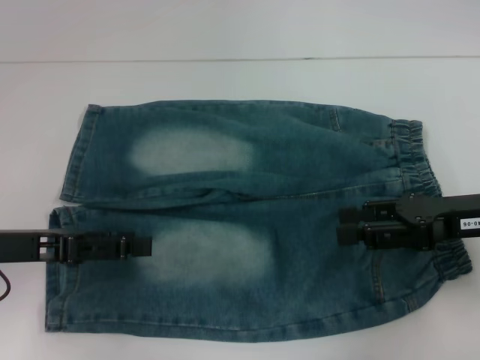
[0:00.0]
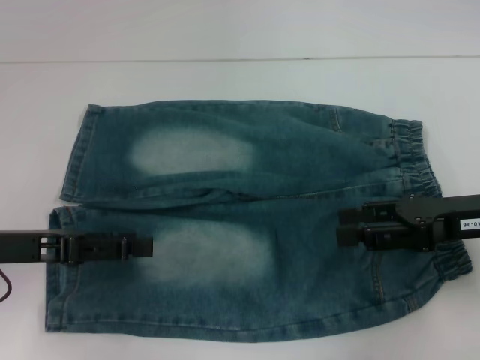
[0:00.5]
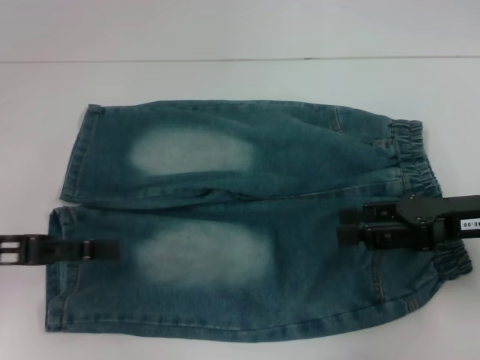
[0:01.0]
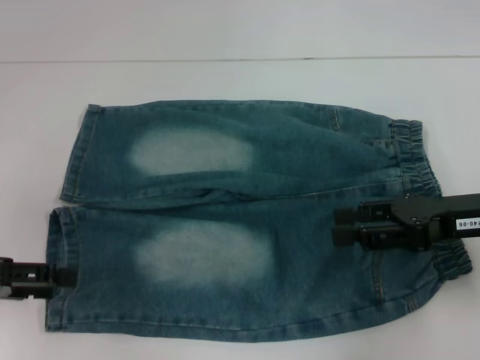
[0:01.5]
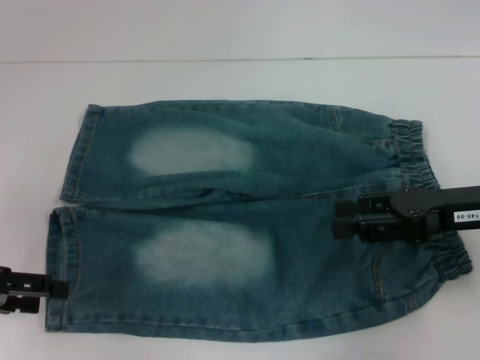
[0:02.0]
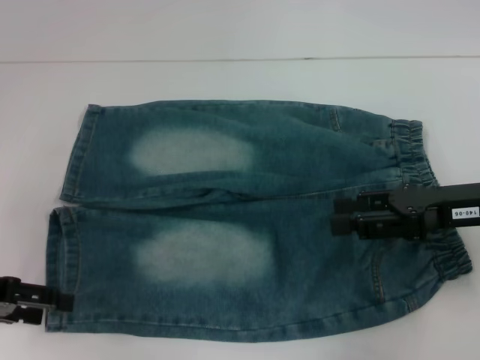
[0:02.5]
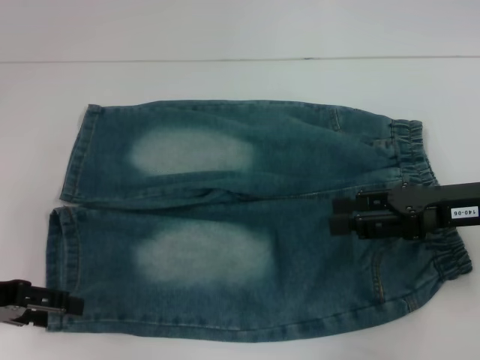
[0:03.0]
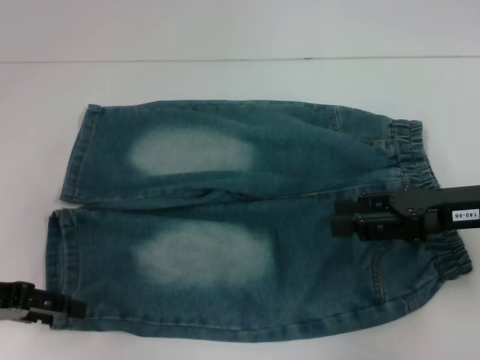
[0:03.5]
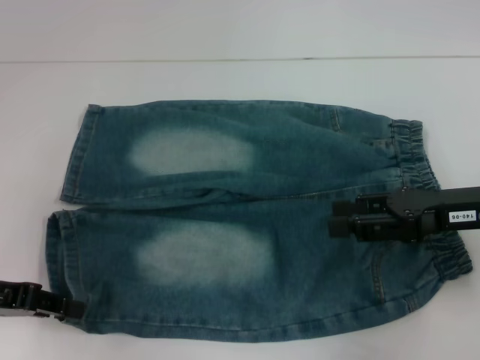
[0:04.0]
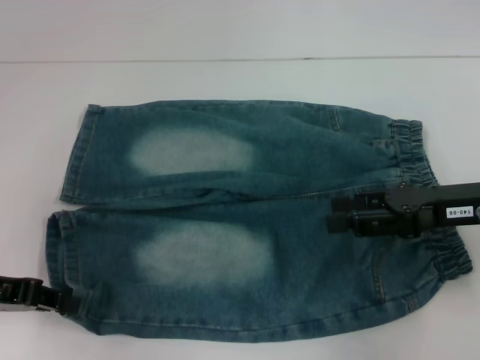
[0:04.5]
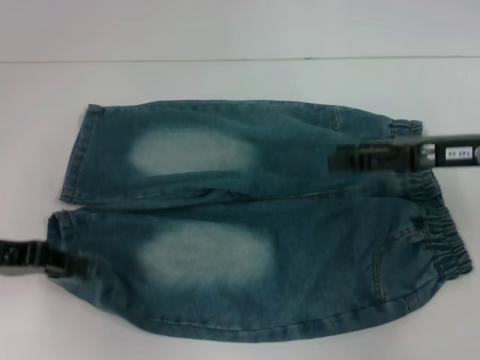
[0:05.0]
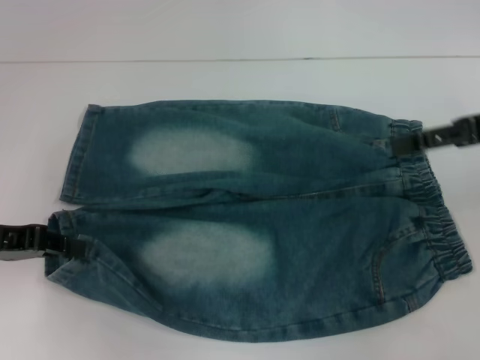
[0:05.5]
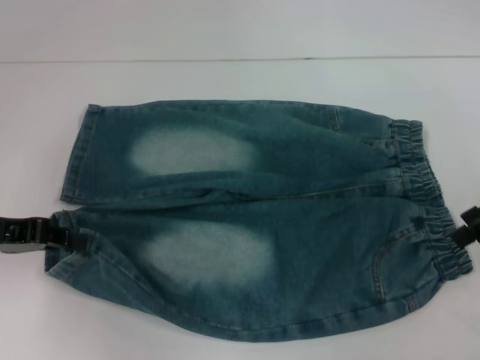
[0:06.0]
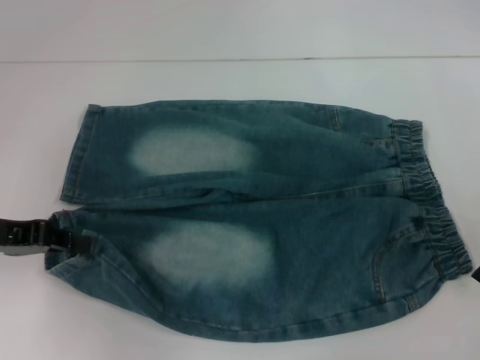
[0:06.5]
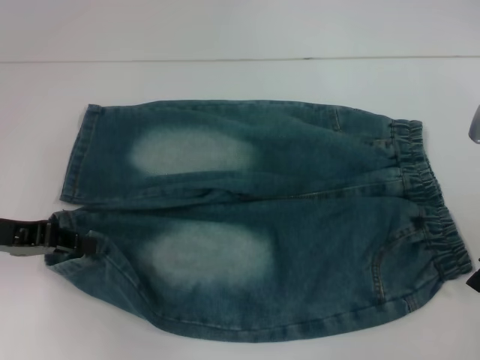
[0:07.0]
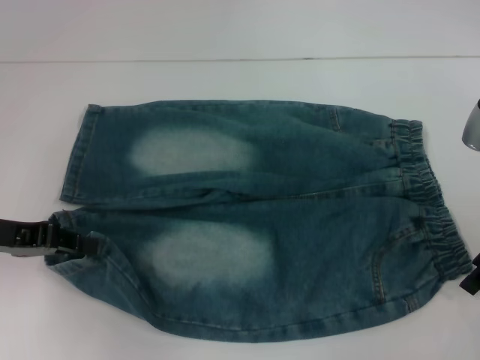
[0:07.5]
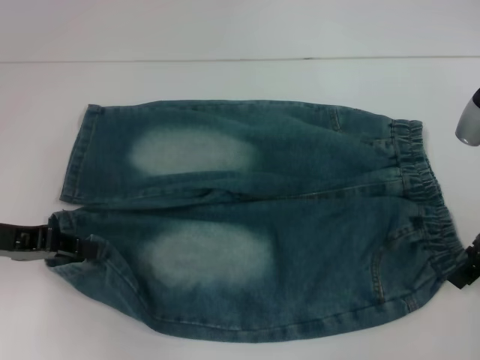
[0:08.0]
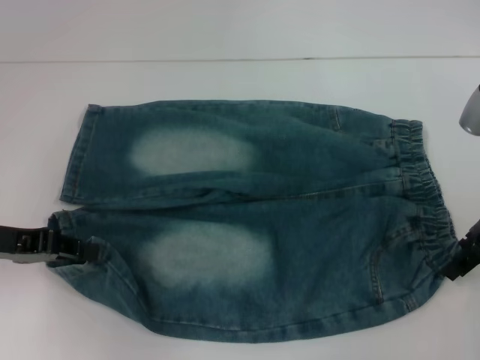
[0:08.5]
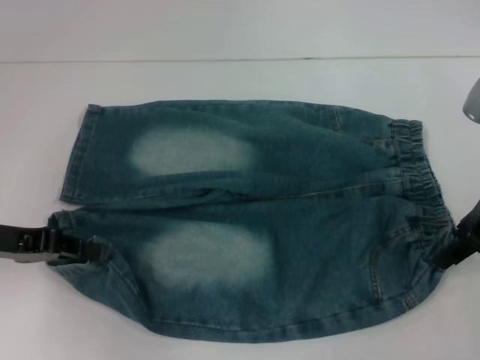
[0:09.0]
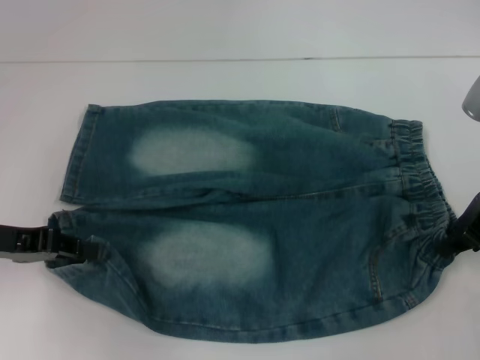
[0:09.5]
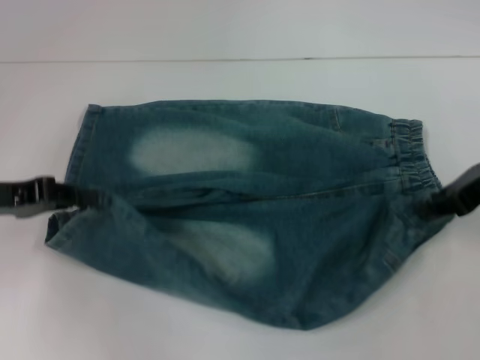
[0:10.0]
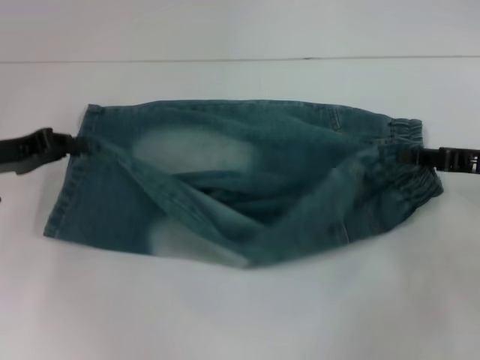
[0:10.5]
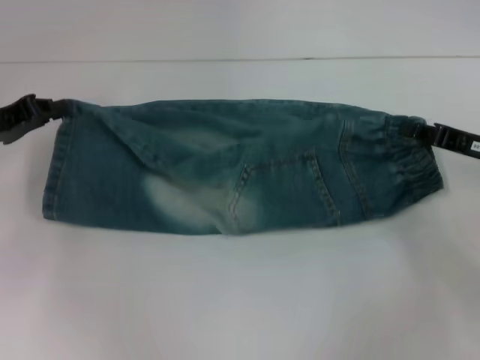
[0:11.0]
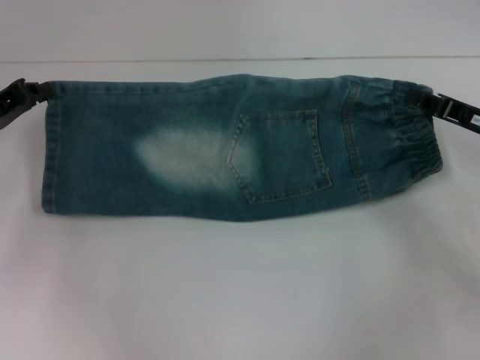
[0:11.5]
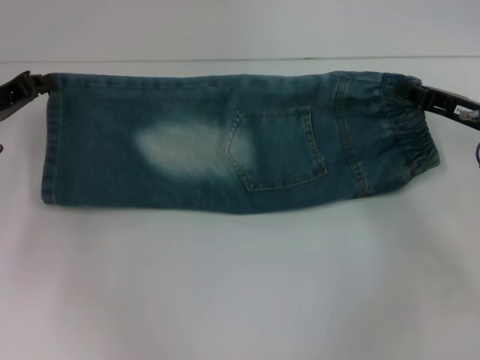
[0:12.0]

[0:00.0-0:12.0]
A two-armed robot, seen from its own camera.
Step, 0:00.0 to 0:04.0: Grab the lower left pant leg with your left hand.
Step, 0:04.5 to 0:08.5: Hold the lower right waistband with your right hand.
0:00.0 to 0:02.0: The left gripper shifts approximately 5 cm to the left.
0:02.0 to 0:04.0: The left gripper closes its fingers.
0:04.0 to 0:06.0: The left gripper closes, while the right gripper shifts approximately 10 cm upward and to the right.
0:06.0 to 0:08.0: The right gripper is displaced downward by about 5 cm.
0:08.0 to 0:10.0: The right gripper closes up.
0:10.0 to 0:12.0: The right gripper goes approximately 5 cm downward, while the left gripper shifts some 5 cm forward.

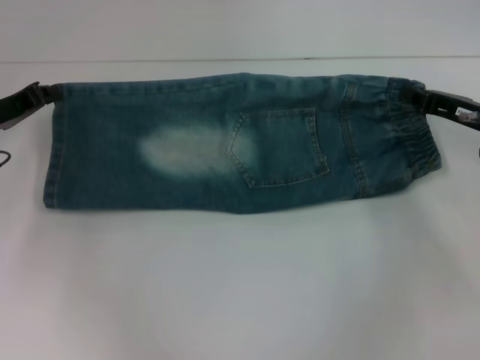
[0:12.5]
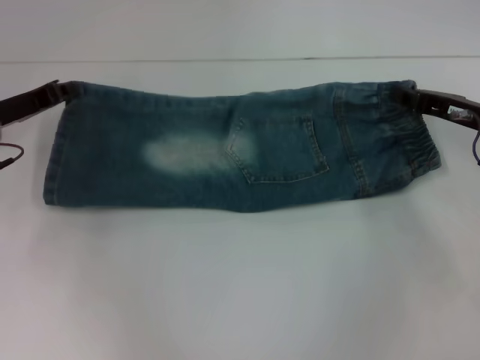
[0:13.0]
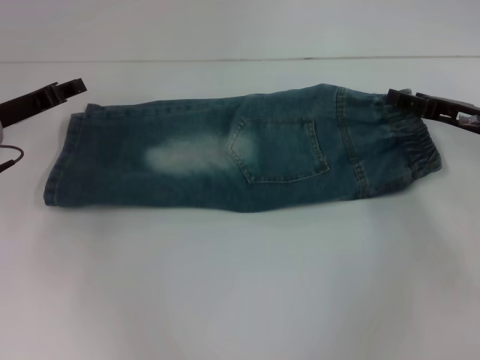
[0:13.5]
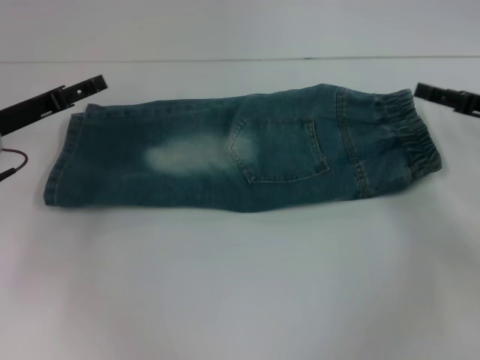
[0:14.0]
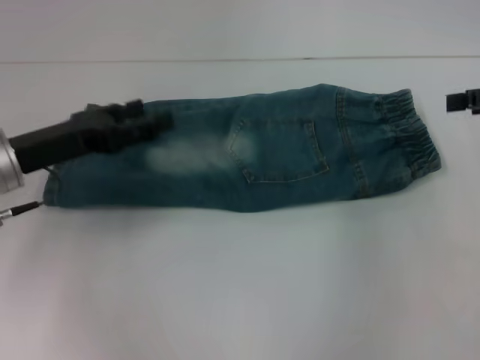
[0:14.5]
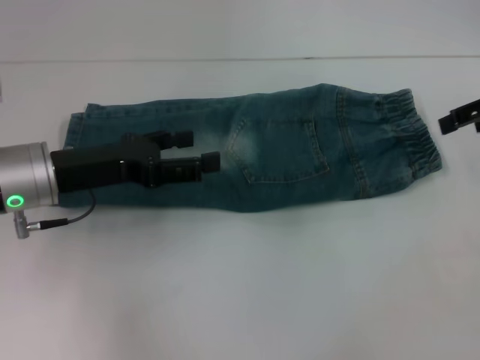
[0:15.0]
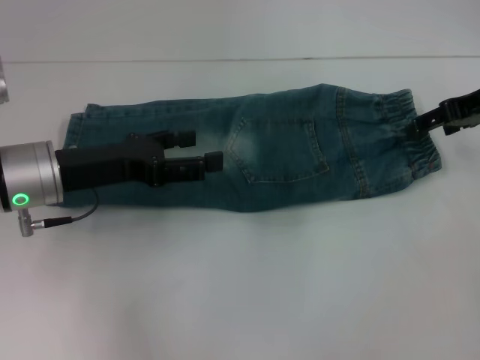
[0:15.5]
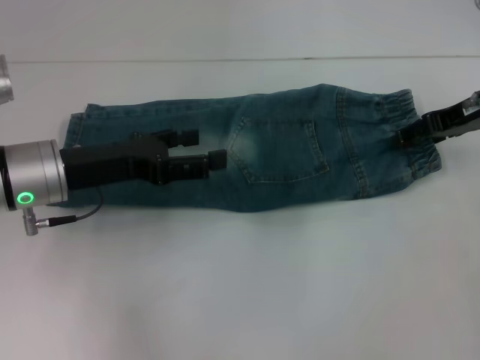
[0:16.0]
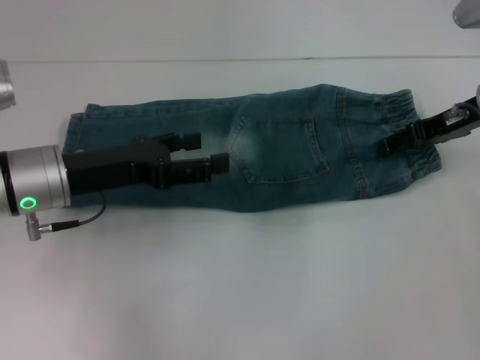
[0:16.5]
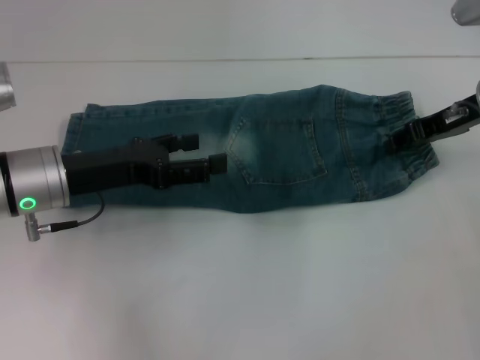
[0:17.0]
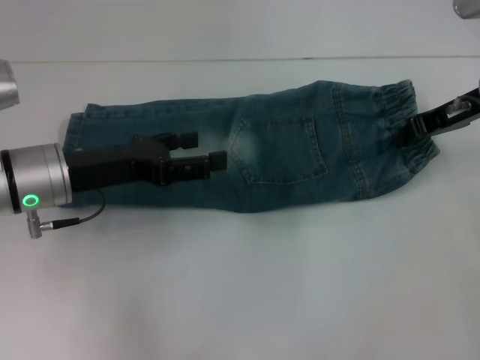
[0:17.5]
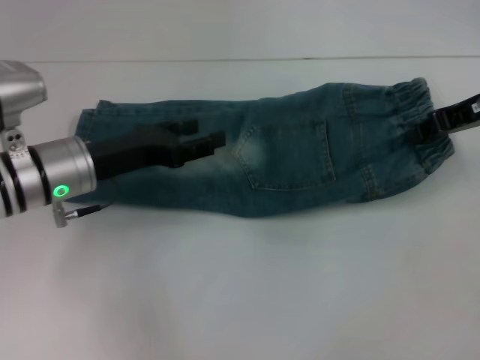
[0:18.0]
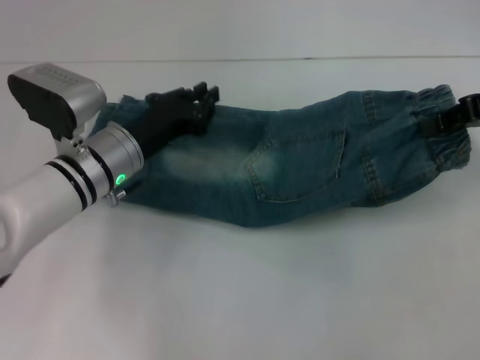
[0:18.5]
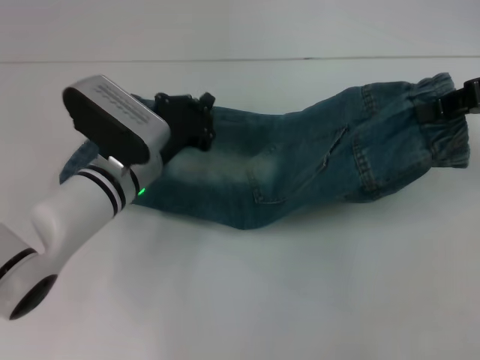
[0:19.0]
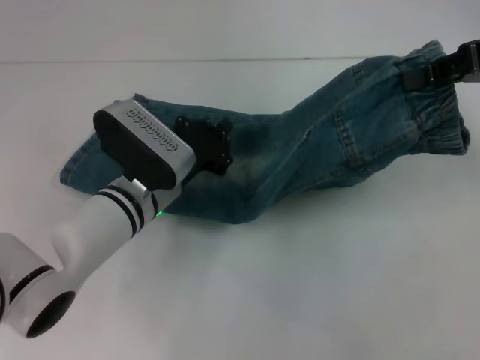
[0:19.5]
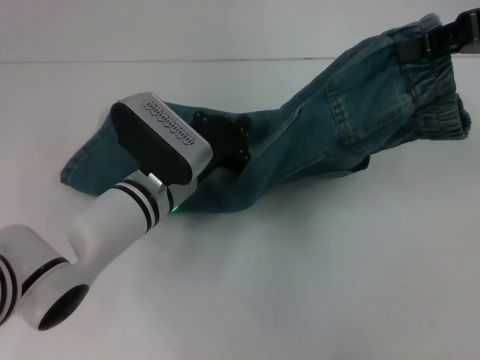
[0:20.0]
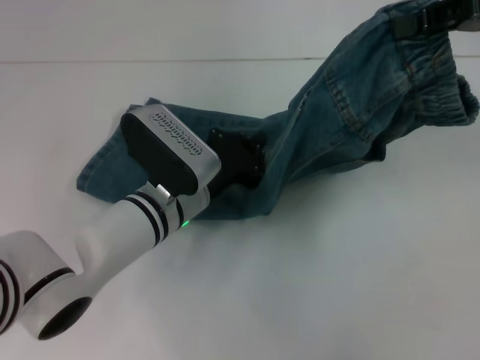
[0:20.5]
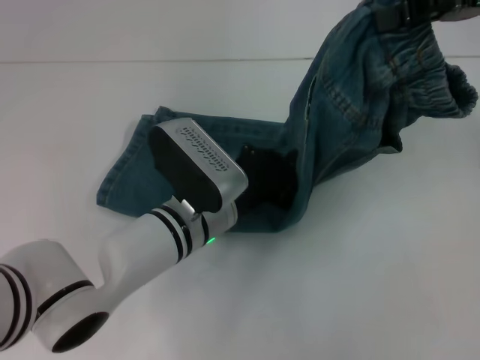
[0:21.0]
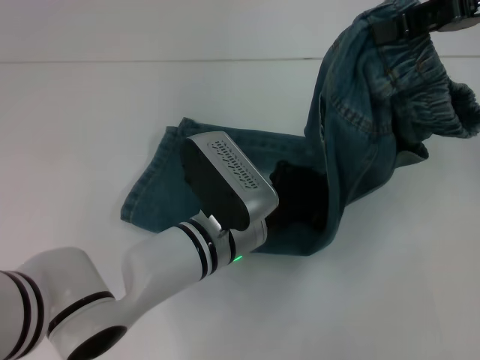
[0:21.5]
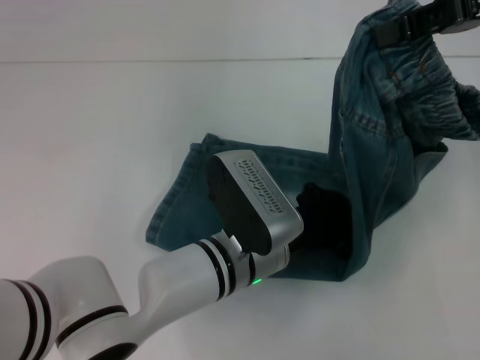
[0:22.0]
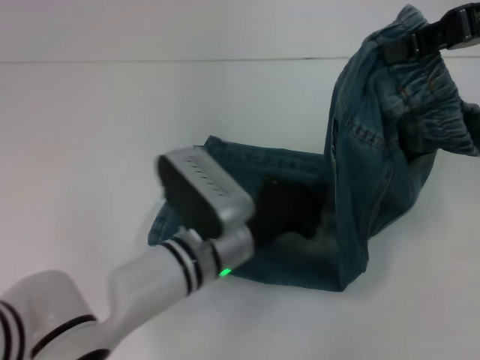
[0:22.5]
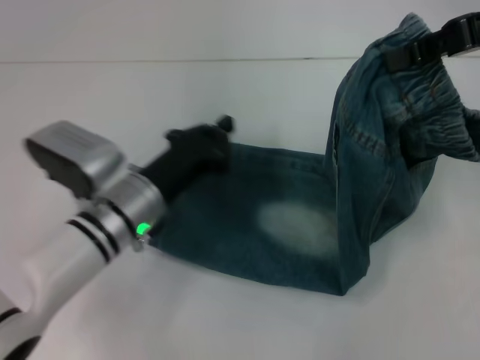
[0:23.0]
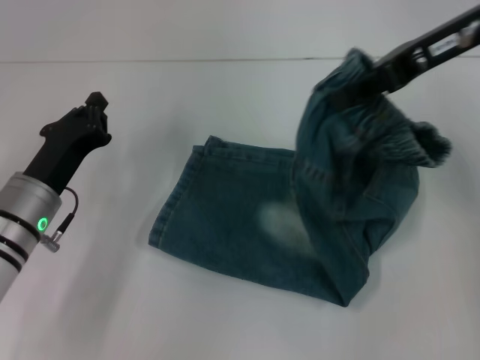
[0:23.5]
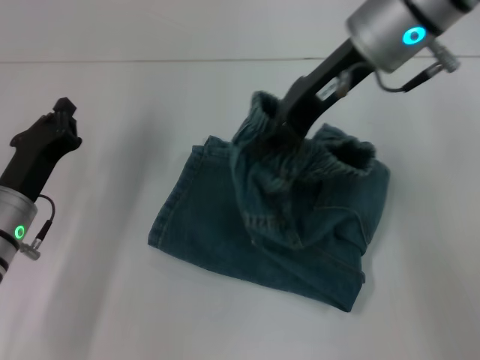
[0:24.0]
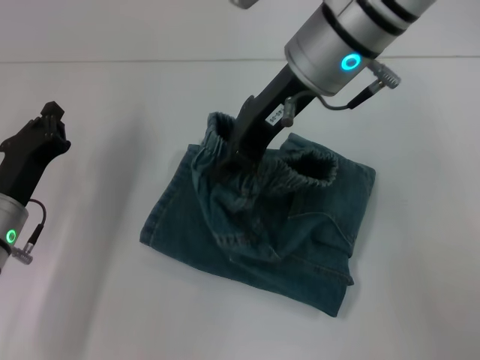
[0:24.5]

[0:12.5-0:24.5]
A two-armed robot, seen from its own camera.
Step, 0:13.5 to 0:17.0: Grab the waistband with your right hand.
Step, 0:17.5 to 0:22.0: Press the middle of the pants with your left hand.
0:12.5 to 0:14.5: The left gripper goes about 5 cm to the right and backward, and opens its fingers; the right gripper heads upward and to the right, covering approximately 15 cm, and opens its fingers.
0:14.5 to 0:16.5: The right gripper shifts approximately 10 cm to the left, forward and downward.
0:16.5 to 0:18.5: The right gripper travels upward by approximately 5 cm, and closes its fingers. Meanwhile the left gripper travels to the right by roughly 5 cm, and closes its fingers.
0:18.5 to 0:20.5: The right gripper moves upward, roughly 10 cm. Meanwhile the left gripper shifts some 5 cm to the right, and closes.
0:20.5 to 0:22.5: The left gripper travels backward by roughly 5 cm.
0:22.5 to 0:24.5: The grippers both shift to the left by about 20 cm.

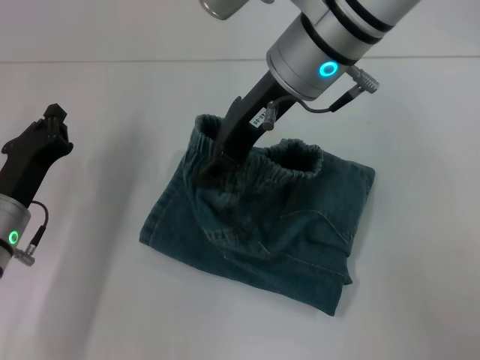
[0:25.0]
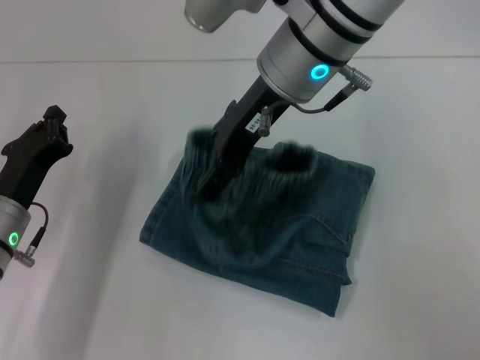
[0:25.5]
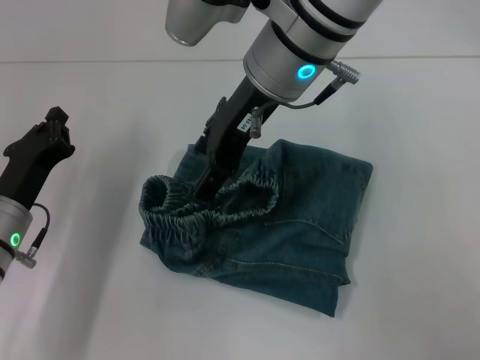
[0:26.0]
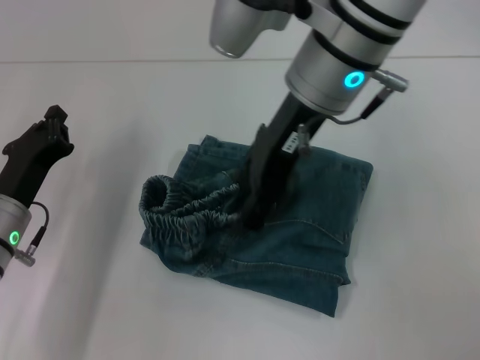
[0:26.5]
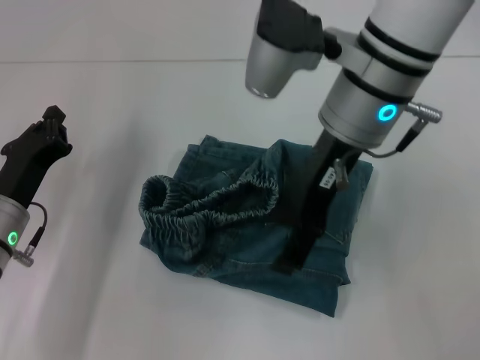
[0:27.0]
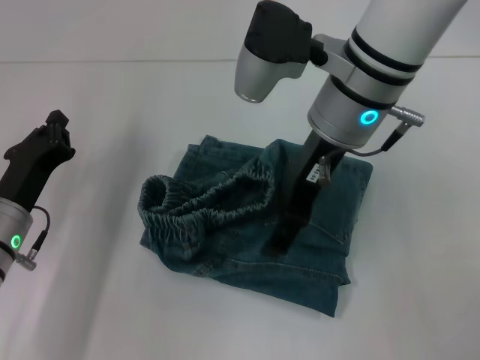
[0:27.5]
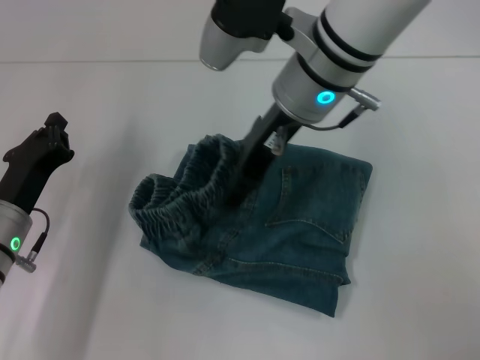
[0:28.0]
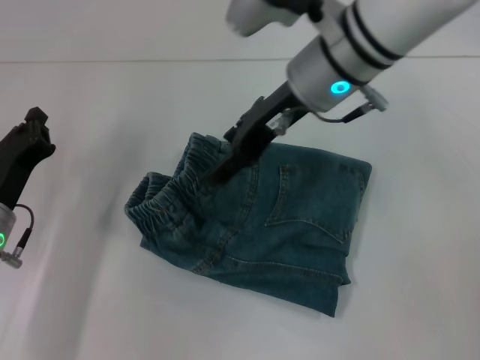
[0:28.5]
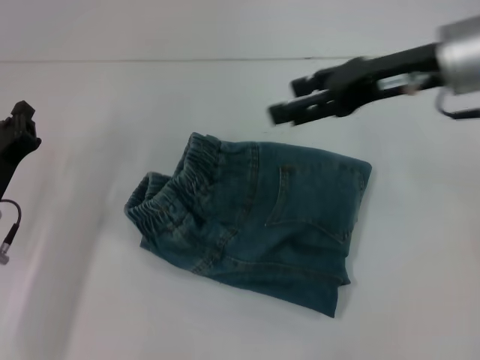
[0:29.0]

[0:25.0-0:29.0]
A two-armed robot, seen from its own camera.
Step, 0:26.5 to 0:28.5: Adjust the pants with your right hand.
0:25.0 to 0:27.0: The right gripper opens up.
0:27.0 to 0:29.0: The right gripper moves to the right, roughly 10 cm.
